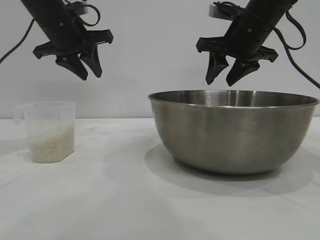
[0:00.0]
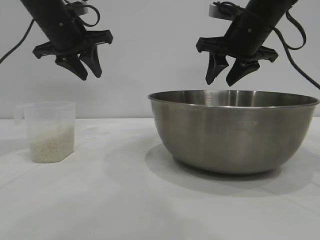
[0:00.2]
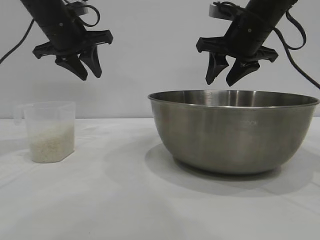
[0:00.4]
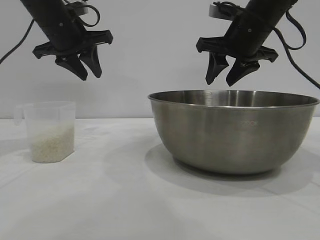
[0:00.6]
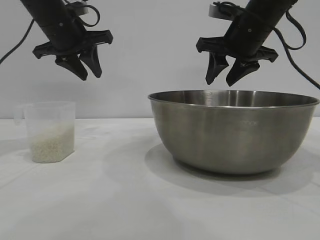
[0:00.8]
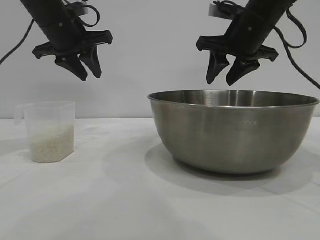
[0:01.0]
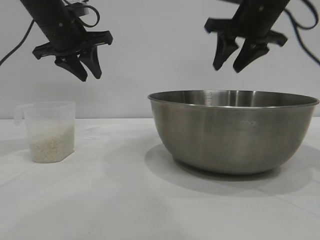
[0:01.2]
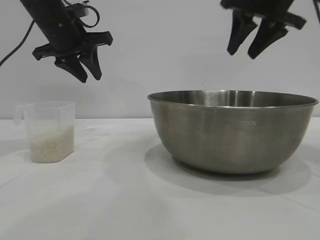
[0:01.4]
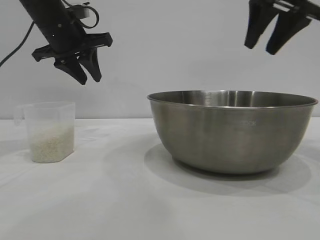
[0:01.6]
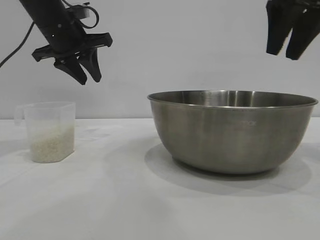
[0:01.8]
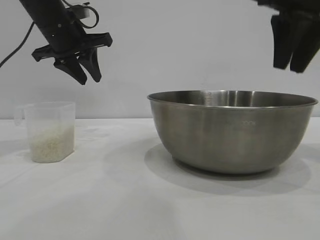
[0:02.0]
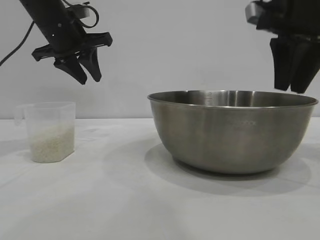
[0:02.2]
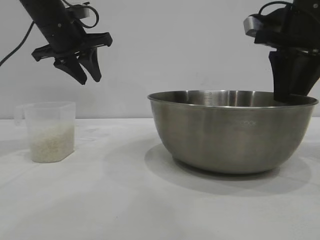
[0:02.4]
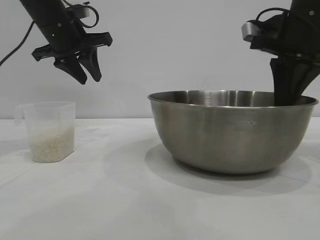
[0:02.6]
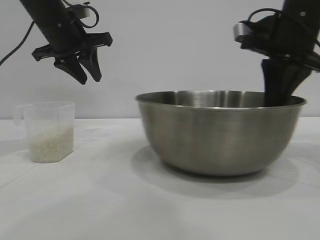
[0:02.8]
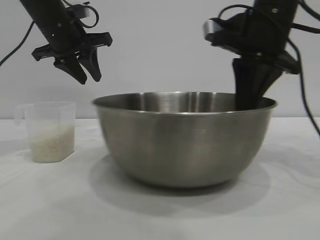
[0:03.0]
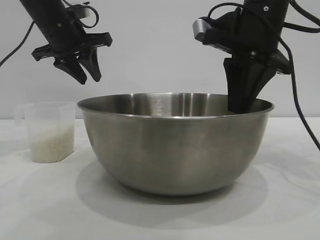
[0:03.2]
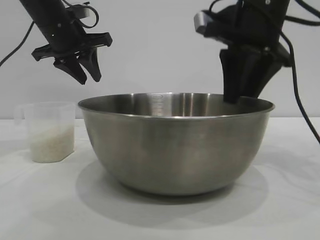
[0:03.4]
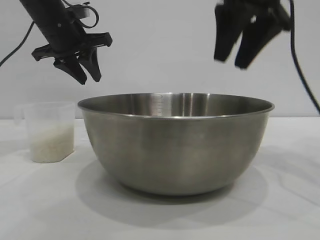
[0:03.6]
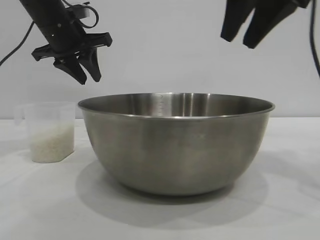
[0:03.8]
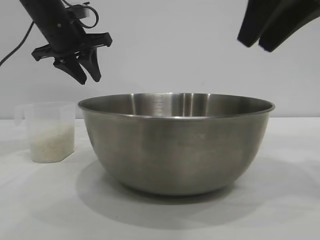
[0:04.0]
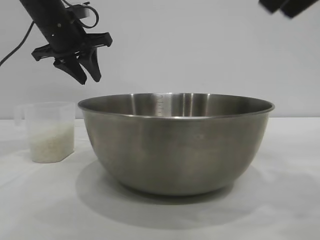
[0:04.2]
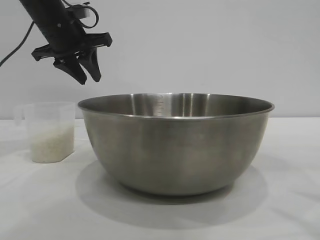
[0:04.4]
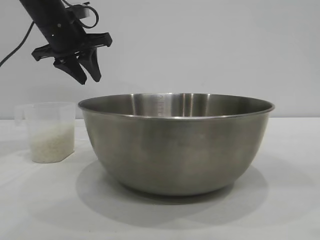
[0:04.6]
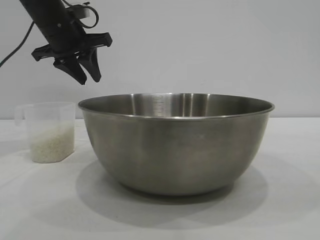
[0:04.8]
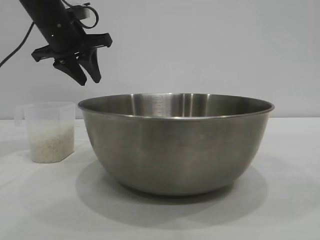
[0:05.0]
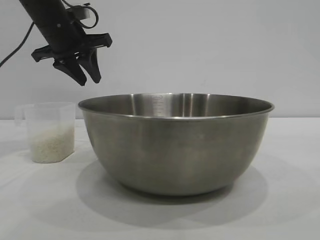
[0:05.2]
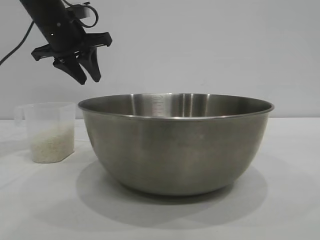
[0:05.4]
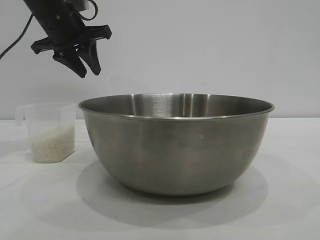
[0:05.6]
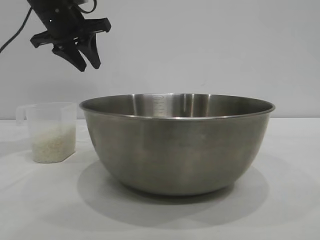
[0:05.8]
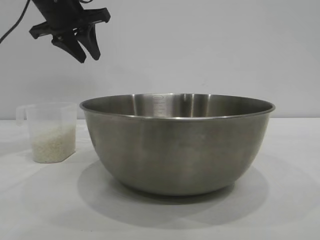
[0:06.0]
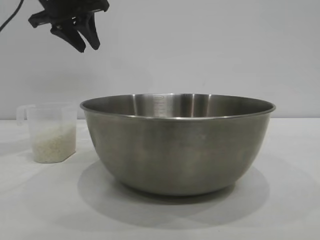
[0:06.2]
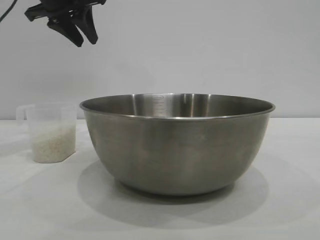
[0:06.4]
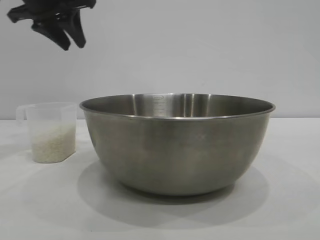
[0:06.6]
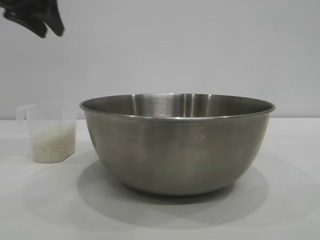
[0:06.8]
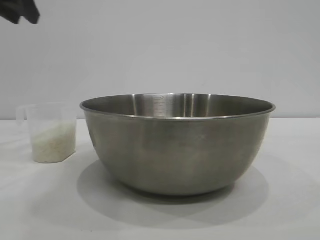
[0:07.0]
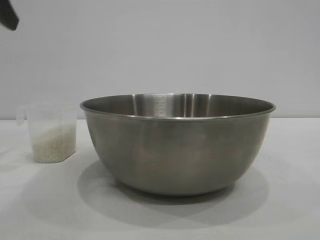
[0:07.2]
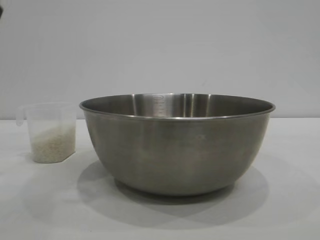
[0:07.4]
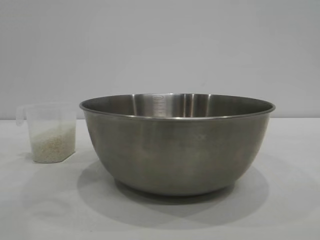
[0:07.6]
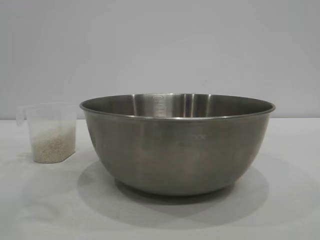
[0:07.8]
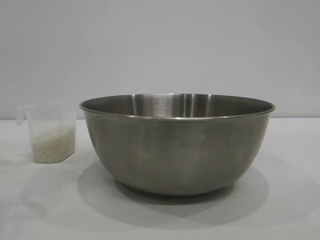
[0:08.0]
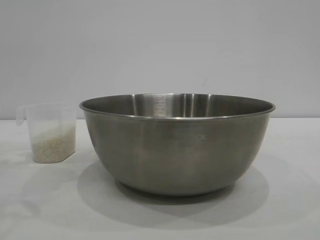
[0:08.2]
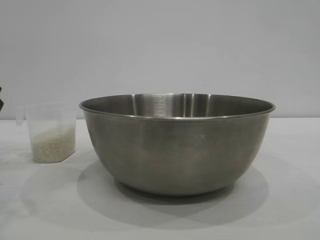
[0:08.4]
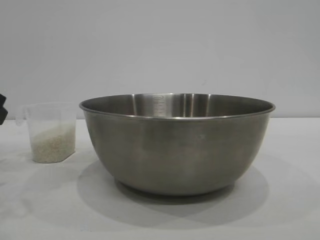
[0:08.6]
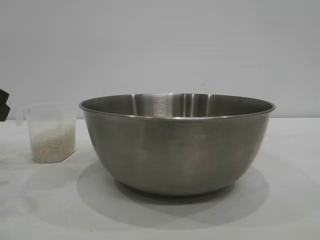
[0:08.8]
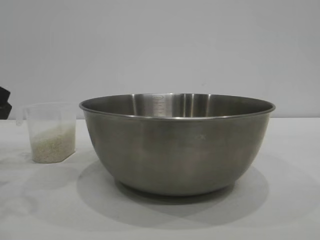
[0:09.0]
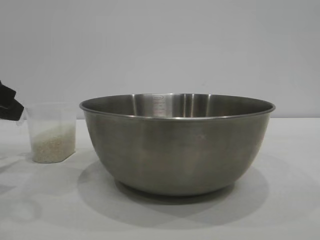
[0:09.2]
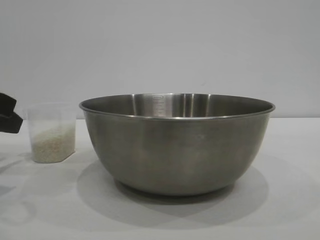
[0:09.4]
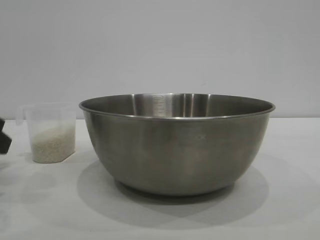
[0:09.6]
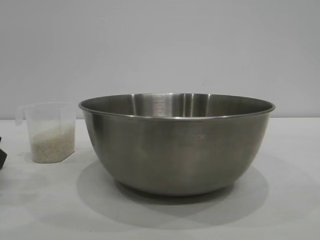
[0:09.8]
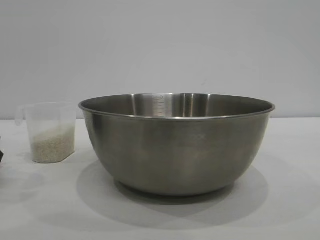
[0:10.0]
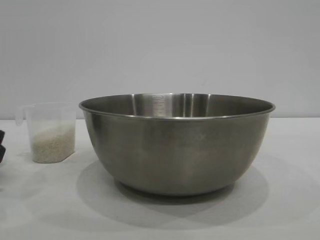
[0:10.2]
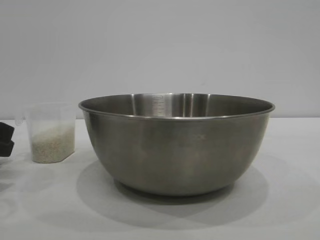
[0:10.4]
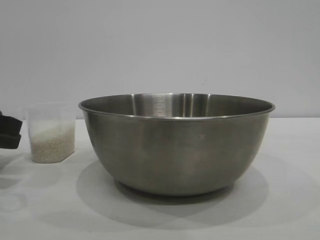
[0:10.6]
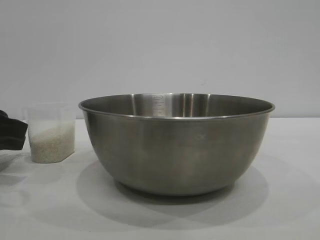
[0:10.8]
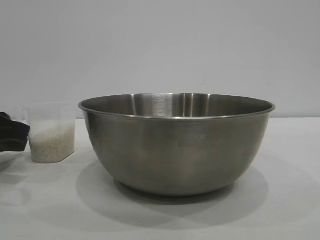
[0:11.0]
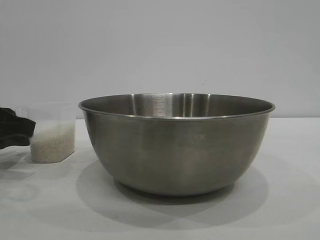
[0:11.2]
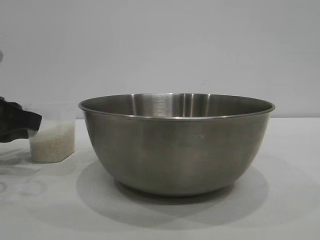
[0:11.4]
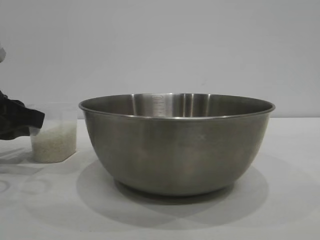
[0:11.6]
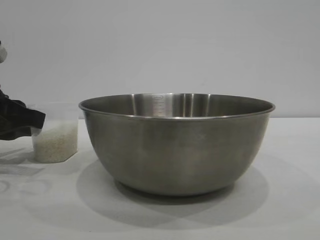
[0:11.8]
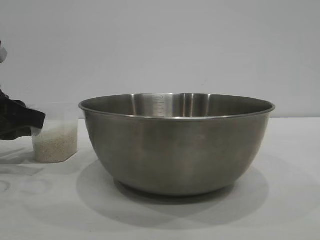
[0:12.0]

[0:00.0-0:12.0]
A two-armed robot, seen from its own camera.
Task of the whole recording: the right gripper grasp the rice container and place it in the center of the table, the left gripper grasp the rice scoop and pour the rice into the rice container.
Step, 0:00.0 to 0:03.4: Move the bowl to the center of view with the right gripper.

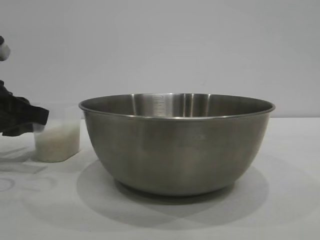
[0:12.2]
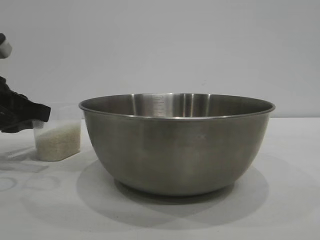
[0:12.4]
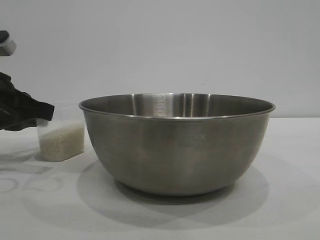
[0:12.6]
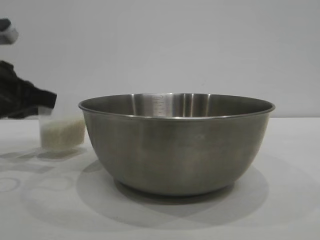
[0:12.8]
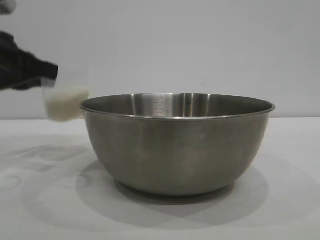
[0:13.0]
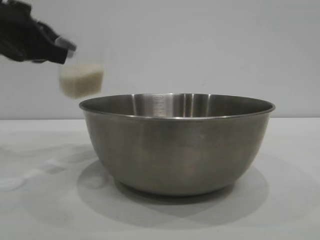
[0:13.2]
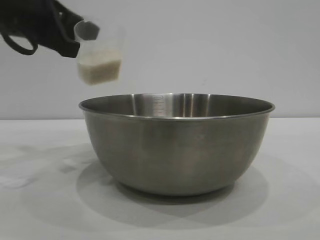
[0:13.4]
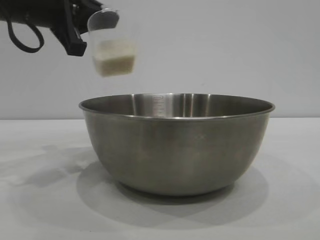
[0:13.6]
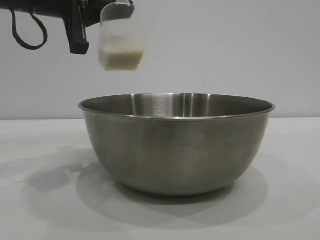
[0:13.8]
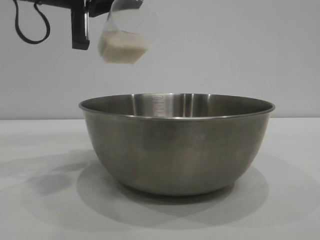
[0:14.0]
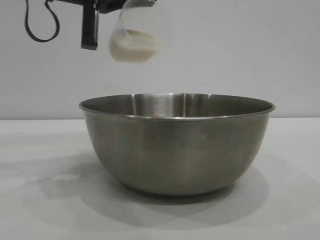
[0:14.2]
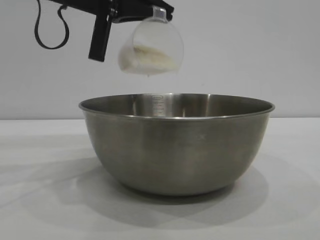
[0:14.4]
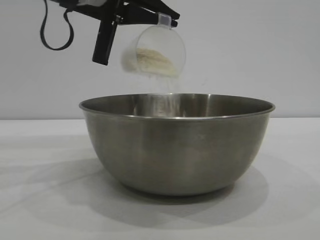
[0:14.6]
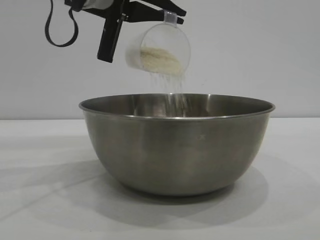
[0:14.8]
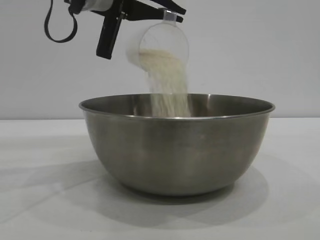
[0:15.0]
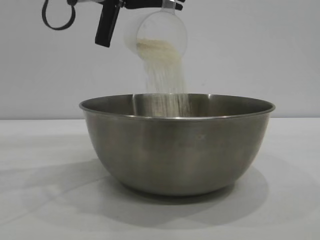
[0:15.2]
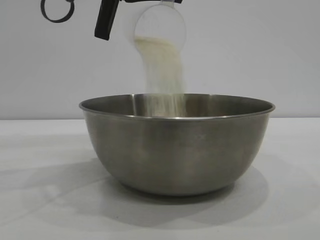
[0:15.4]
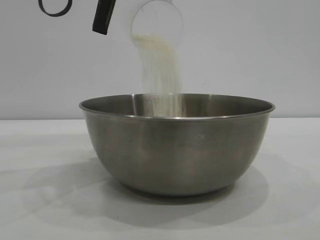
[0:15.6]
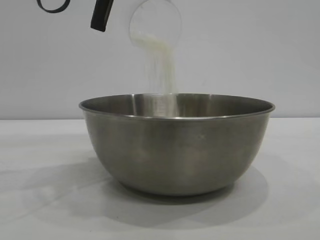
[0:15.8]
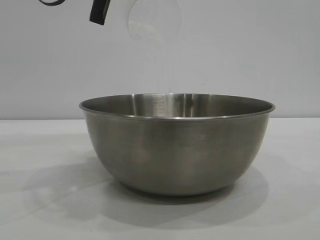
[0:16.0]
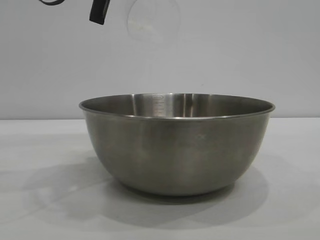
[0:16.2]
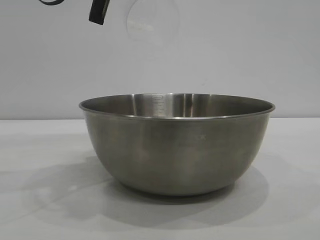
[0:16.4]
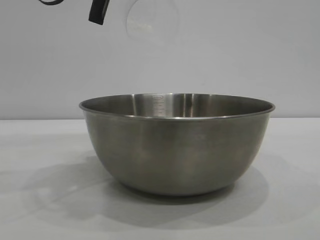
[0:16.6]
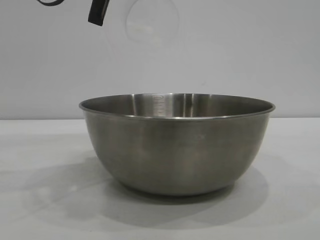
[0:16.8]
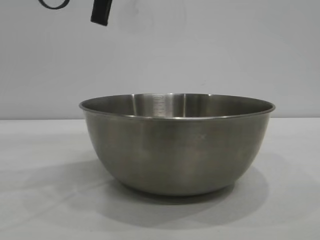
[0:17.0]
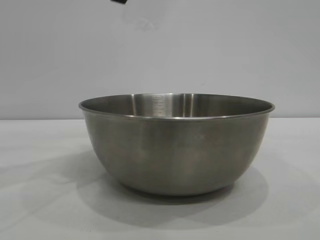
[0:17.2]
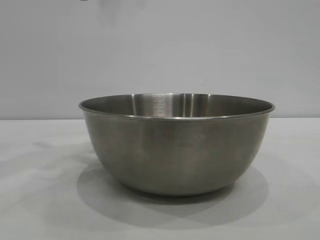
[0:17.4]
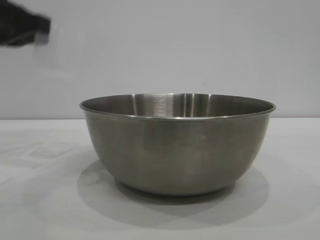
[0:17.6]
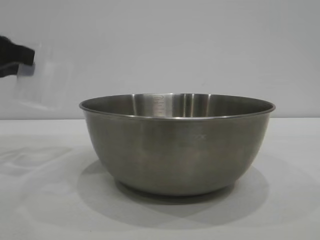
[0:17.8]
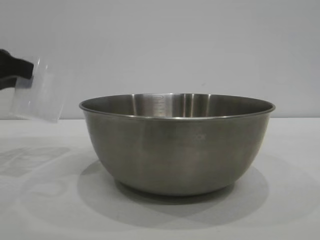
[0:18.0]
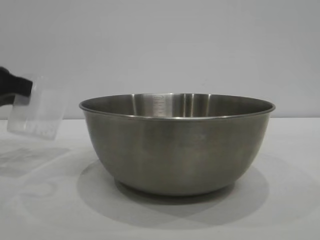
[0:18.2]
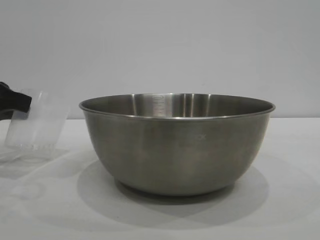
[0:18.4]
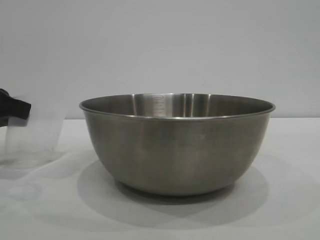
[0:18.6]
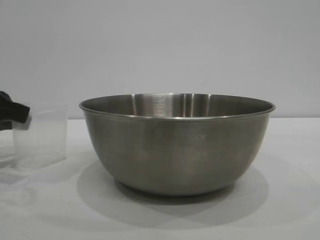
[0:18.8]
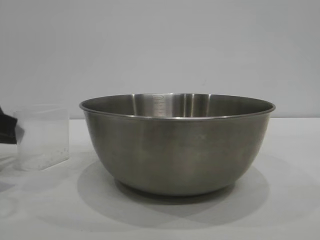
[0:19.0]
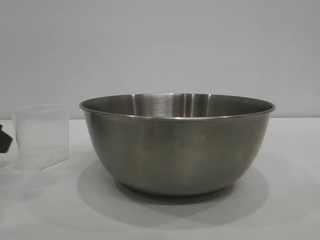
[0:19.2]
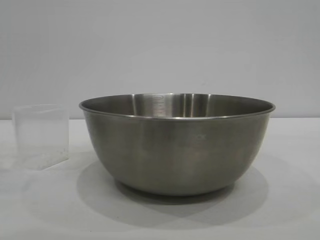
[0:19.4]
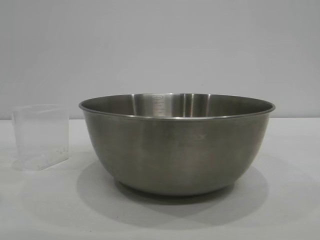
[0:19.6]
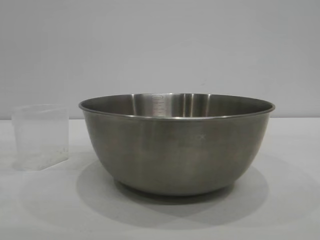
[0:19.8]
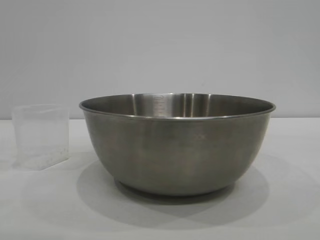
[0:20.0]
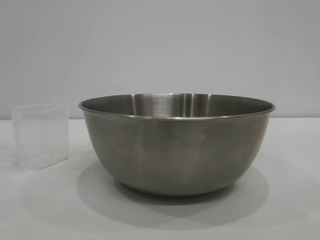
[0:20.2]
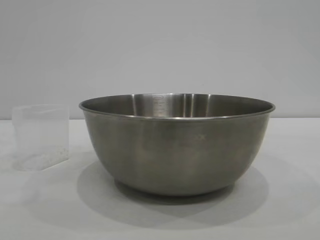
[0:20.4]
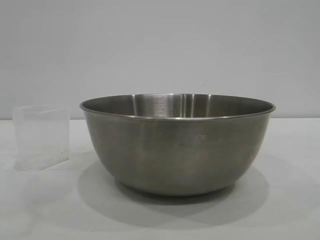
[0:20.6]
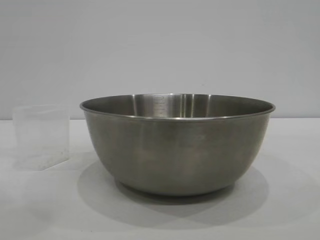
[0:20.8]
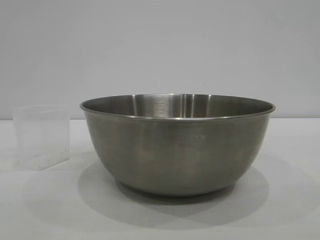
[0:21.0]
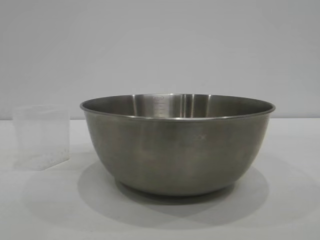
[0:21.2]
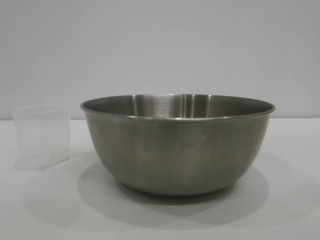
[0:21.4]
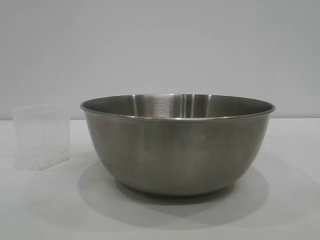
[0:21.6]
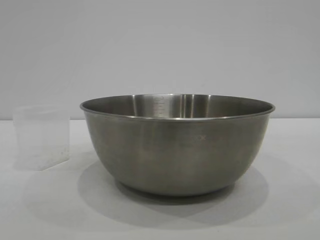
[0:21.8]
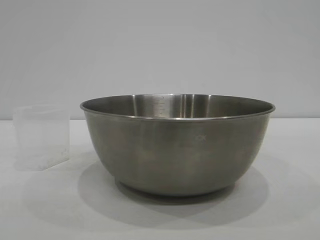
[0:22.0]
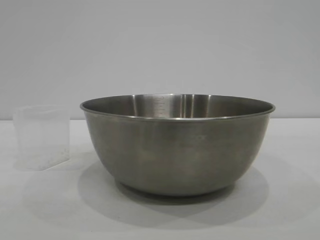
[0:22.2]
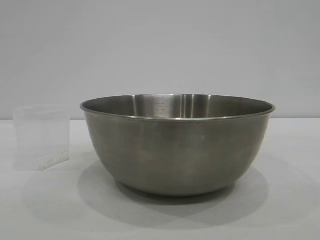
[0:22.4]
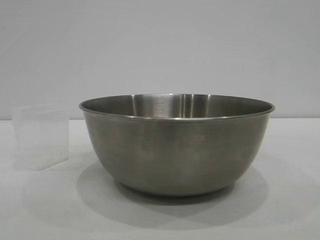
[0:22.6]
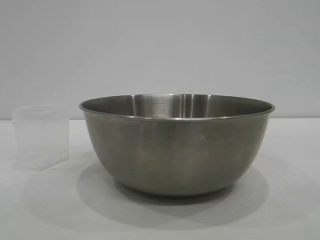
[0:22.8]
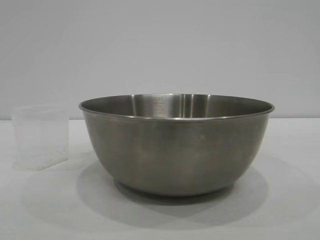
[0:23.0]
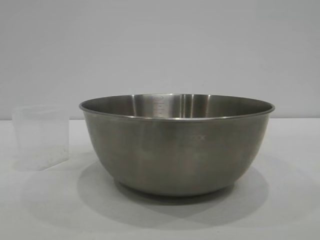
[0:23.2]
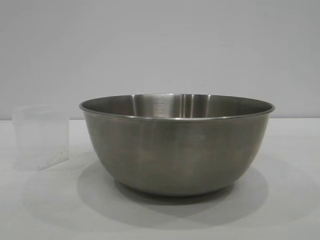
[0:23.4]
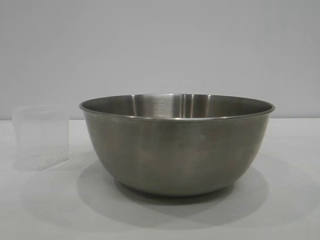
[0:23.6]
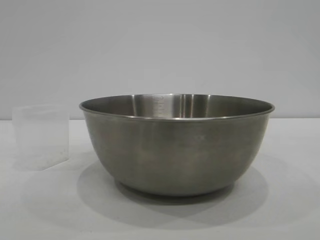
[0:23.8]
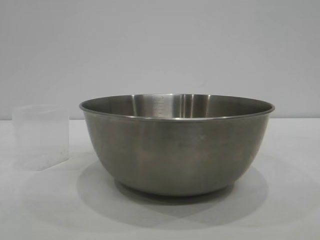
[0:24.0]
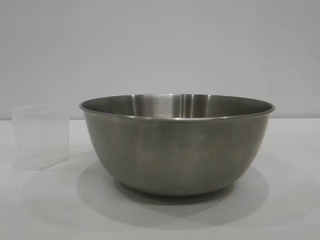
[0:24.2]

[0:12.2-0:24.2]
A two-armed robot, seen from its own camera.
Task of the whole recording: the right gripper grasp the rice container and place it in the center of the table, the left gripper grasp the rice scoop and pour the rice into the rice container.
Step, 0:13.2 to 0:17.2: Pour the rice from the cup into the bowl with the left gripper.
Step, 0:17.4 to 0:19.4: Place the cup on the table with the left gripper.
